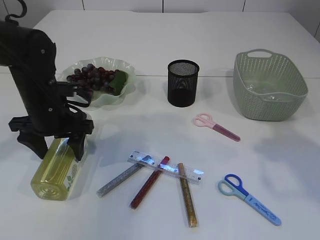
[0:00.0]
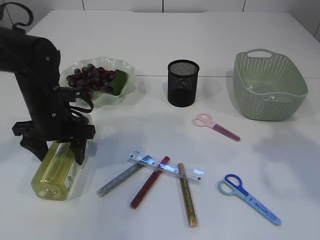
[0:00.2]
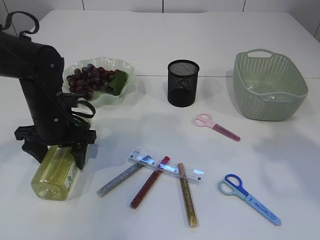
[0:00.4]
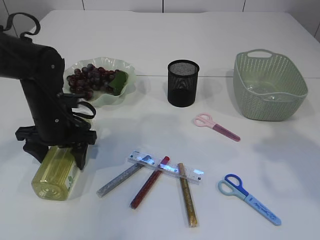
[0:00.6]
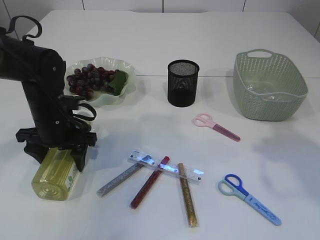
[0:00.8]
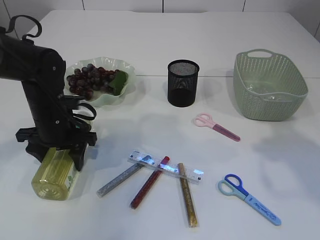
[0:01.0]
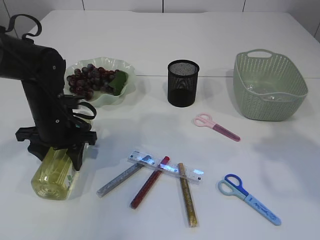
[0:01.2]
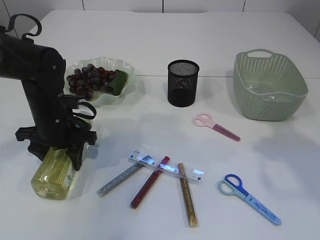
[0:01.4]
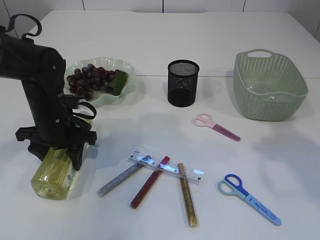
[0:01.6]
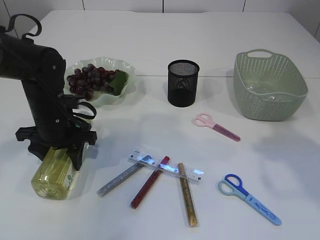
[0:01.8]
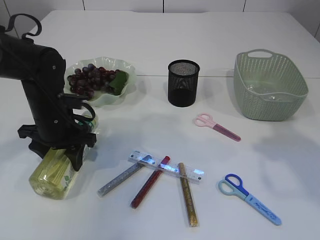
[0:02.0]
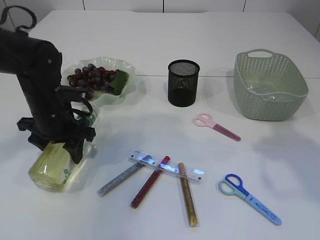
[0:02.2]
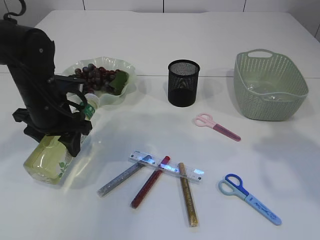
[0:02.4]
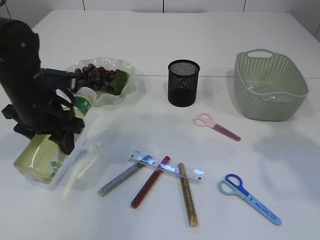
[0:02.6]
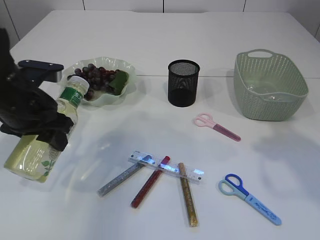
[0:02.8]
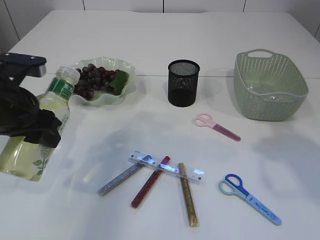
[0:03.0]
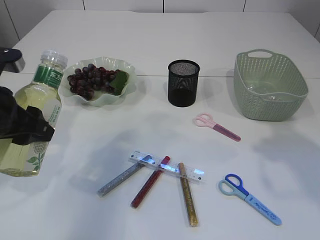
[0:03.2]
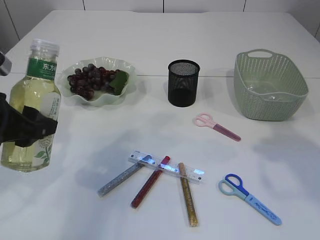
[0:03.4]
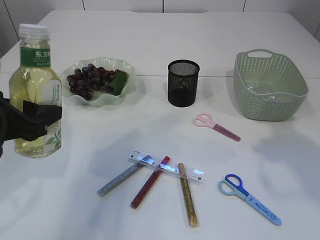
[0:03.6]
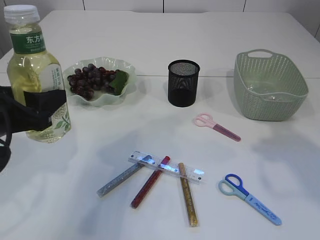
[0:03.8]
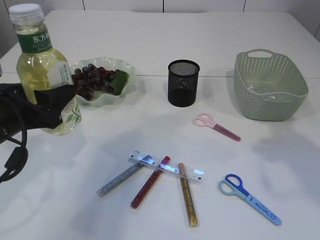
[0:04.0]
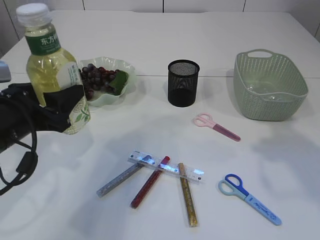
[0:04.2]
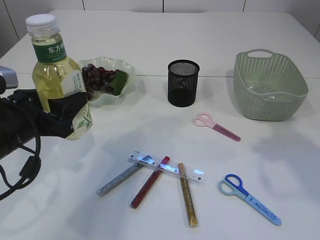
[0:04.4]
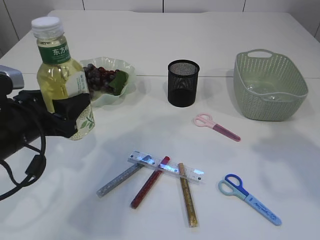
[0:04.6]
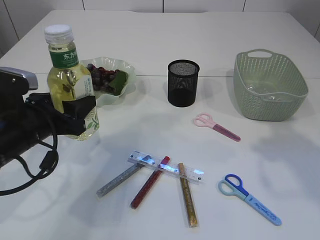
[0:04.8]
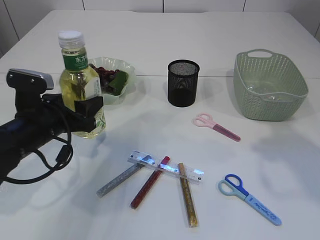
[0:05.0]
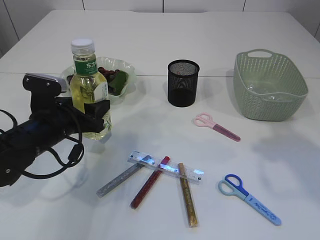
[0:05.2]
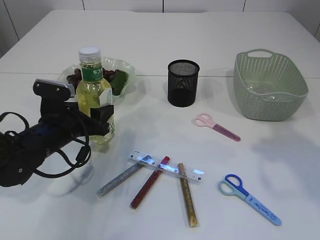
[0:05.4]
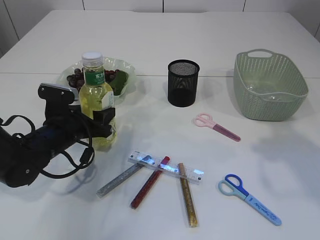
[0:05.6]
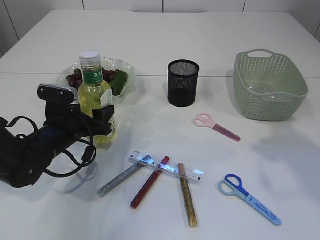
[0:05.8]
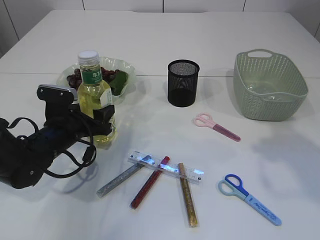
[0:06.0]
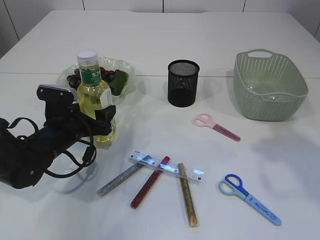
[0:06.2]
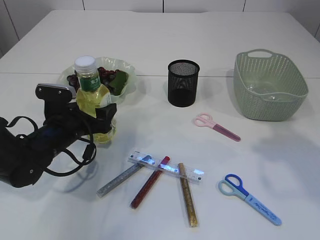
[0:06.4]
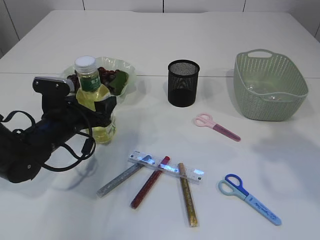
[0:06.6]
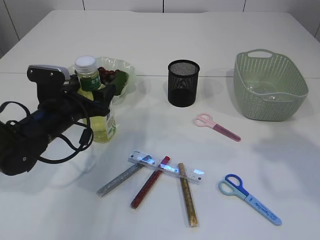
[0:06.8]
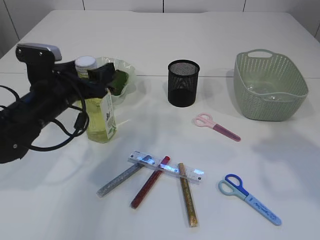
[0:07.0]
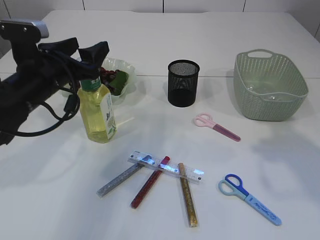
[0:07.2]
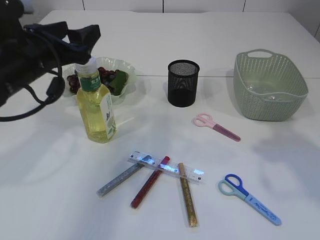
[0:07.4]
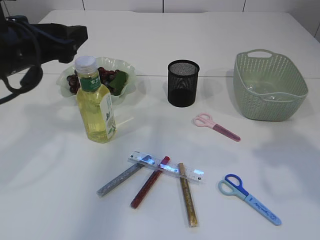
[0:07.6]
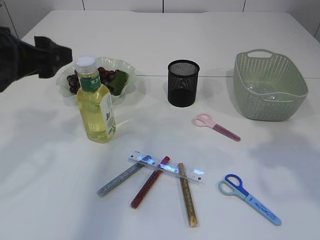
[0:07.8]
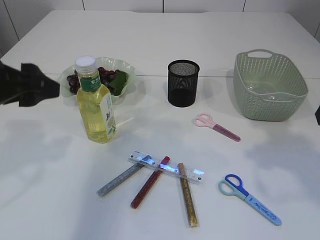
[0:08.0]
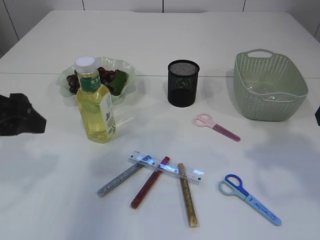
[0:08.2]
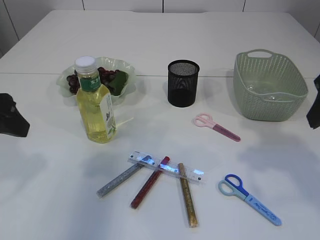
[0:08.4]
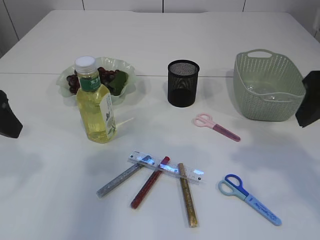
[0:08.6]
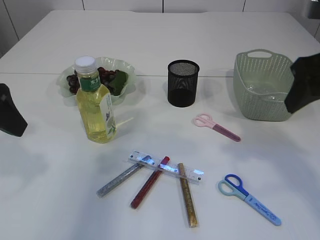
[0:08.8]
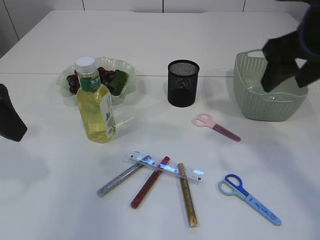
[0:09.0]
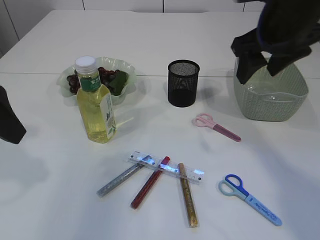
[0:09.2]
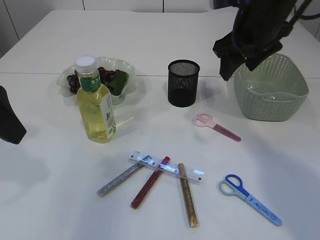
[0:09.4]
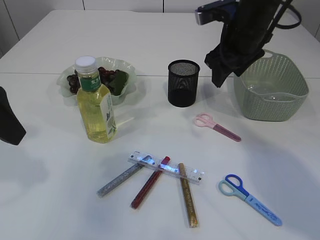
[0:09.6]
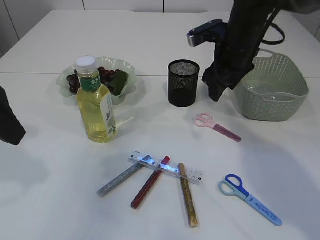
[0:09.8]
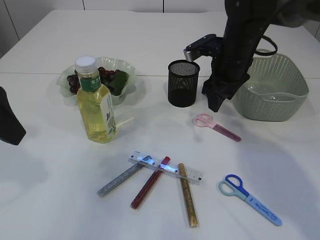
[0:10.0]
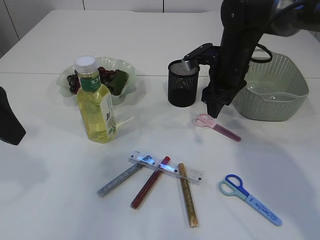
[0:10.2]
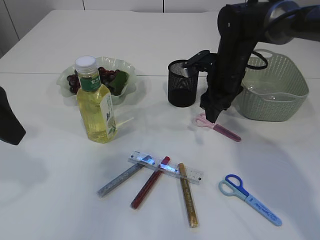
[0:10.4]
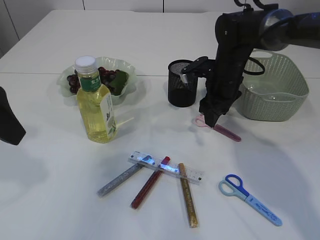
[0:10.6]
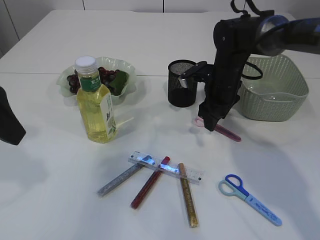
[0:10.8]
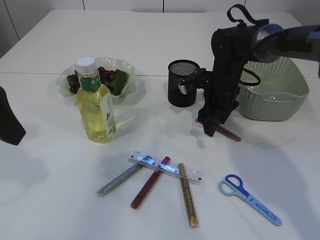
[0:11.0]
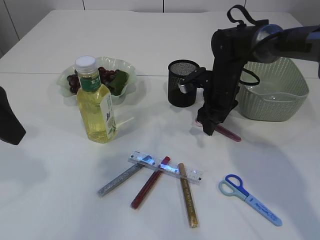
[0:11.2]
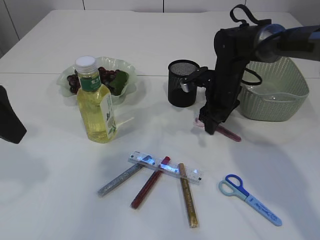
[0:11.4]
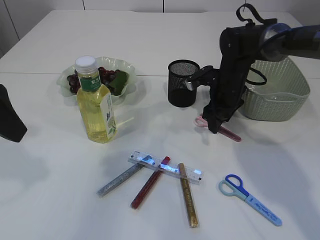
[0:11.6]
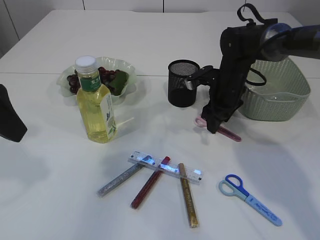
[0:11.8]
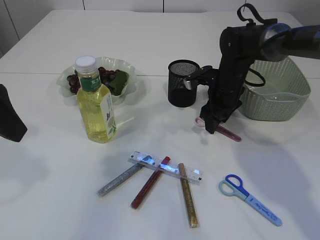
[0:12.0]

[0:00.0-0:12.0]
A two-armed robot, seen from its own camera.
Step, 0:00.0 to 0:03.0: Pick up the bottle with the left arm.
Step, 0:03.2 to 0:07.4: Place the bottle.
0:00.0 to 0:01.6: The grippers make only small movements.
0:01.6 to 0:03.0: The left gripper heads upward and backward, covering approximately 10 cm.
0:03.0 to 0:04.4: The left gripper changes place by approximately 5 cm.
0:04.4 to 0:06.0: The left gripper moves downward and forward, some 15 cm.
0:06.0 to 0:07.6: The left gripper moves upward, about 20 cm.
0:07.6 to 0:09.0: The right gripper shifts about 5 cm to the left. The left gripper goes roughly 5 cm backward.
0:09.0 to 0:10.4: The right gripper heads forward and downward, covering about 20 cm.
0:10.4 to 0:12.0: The grippers move only a little.

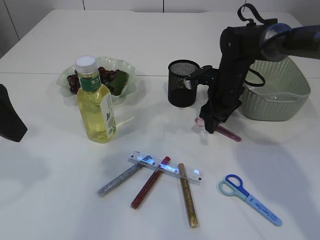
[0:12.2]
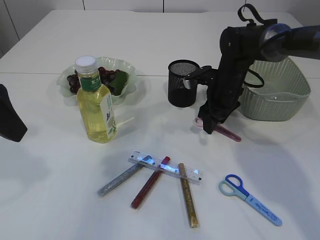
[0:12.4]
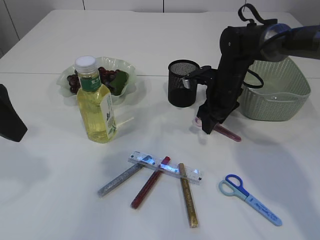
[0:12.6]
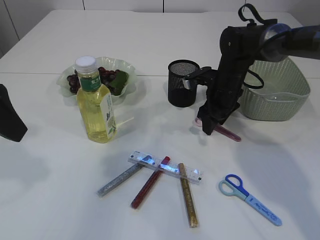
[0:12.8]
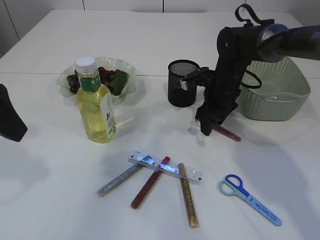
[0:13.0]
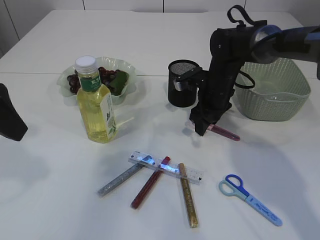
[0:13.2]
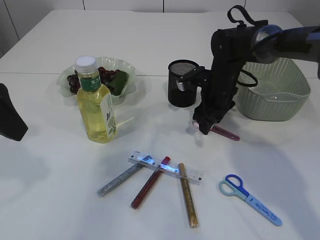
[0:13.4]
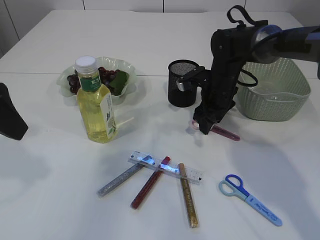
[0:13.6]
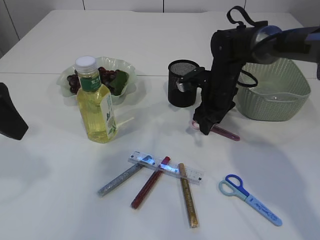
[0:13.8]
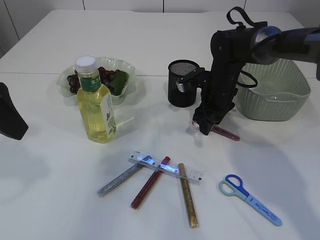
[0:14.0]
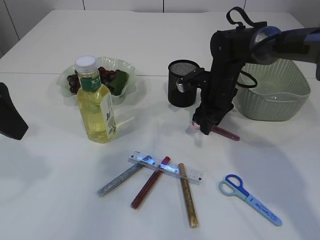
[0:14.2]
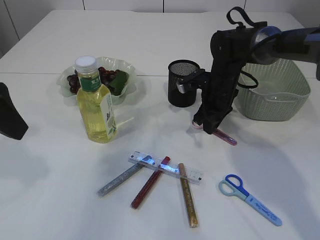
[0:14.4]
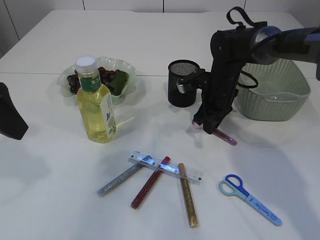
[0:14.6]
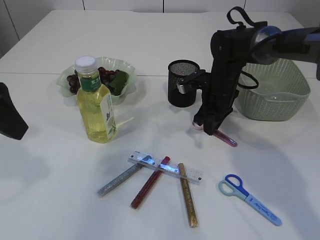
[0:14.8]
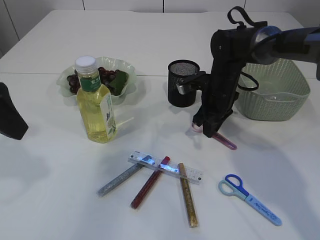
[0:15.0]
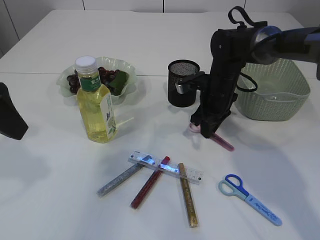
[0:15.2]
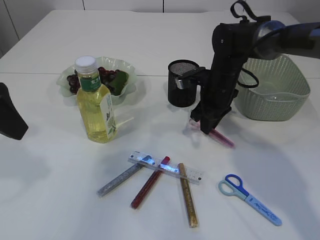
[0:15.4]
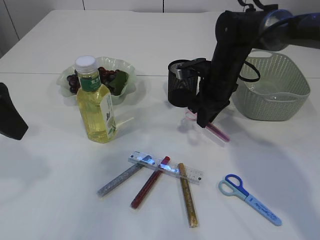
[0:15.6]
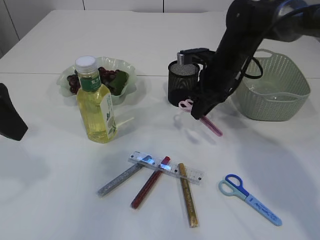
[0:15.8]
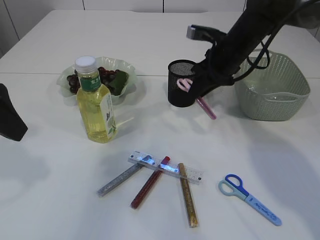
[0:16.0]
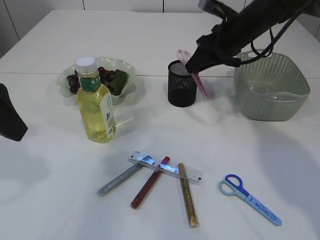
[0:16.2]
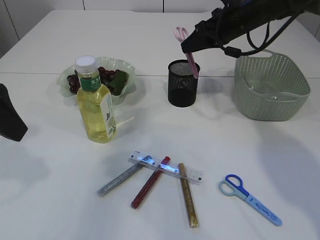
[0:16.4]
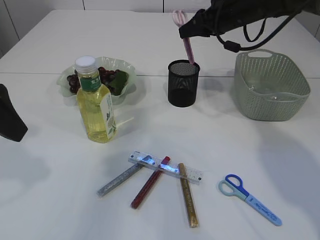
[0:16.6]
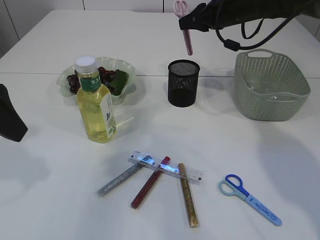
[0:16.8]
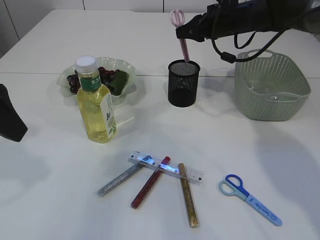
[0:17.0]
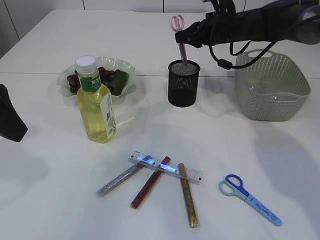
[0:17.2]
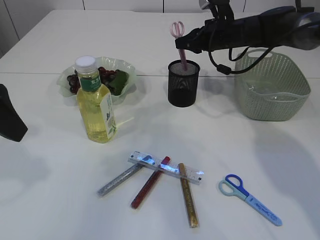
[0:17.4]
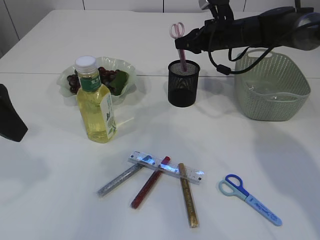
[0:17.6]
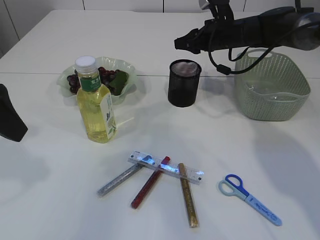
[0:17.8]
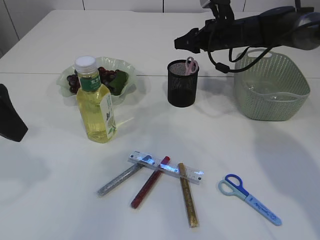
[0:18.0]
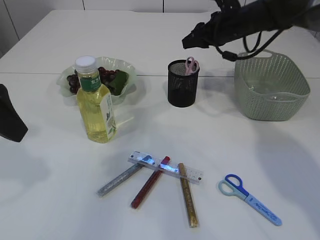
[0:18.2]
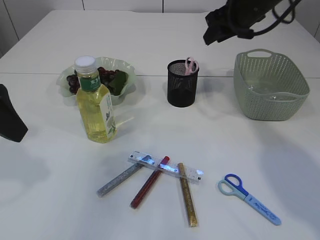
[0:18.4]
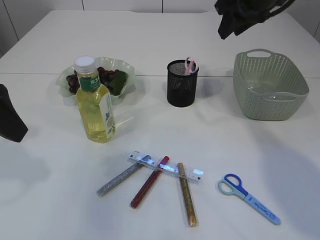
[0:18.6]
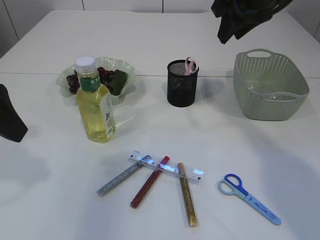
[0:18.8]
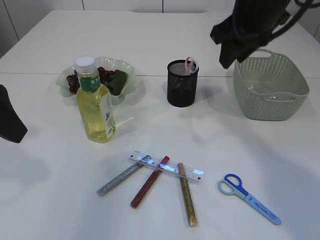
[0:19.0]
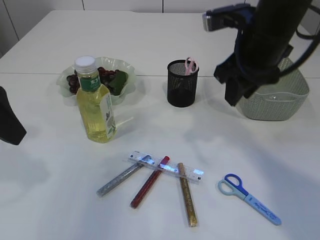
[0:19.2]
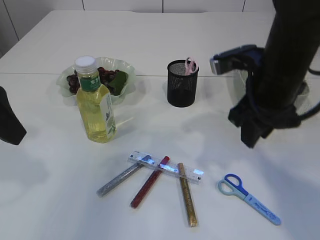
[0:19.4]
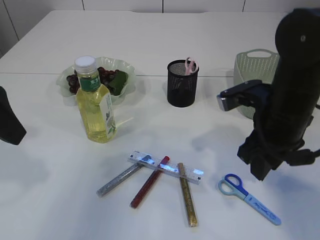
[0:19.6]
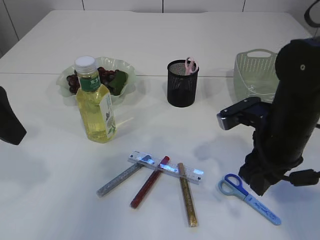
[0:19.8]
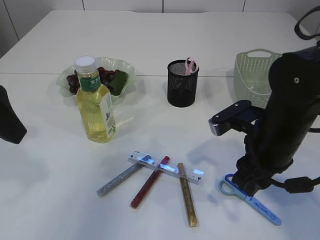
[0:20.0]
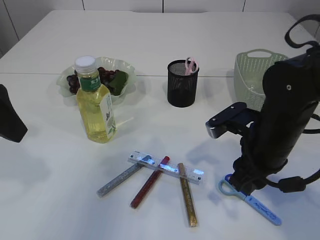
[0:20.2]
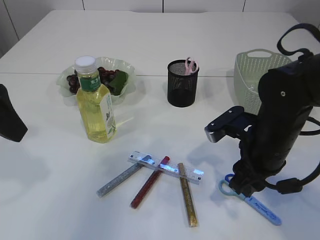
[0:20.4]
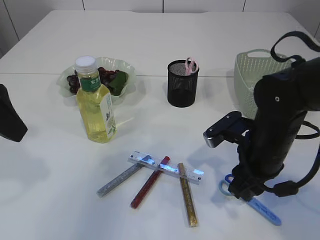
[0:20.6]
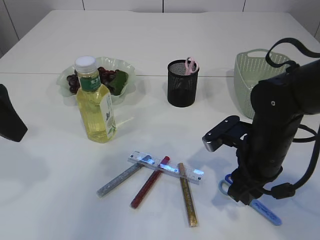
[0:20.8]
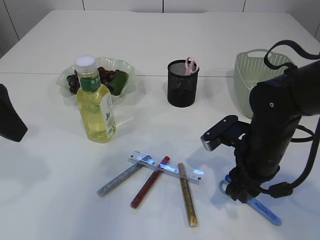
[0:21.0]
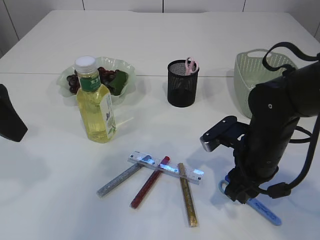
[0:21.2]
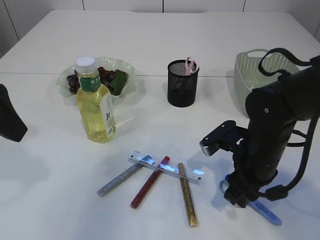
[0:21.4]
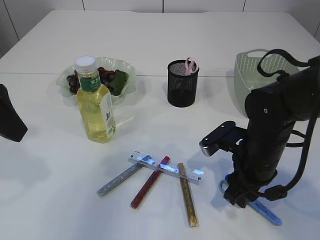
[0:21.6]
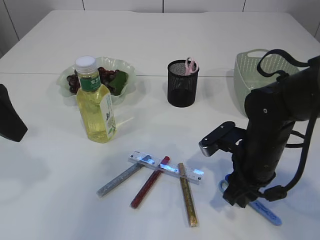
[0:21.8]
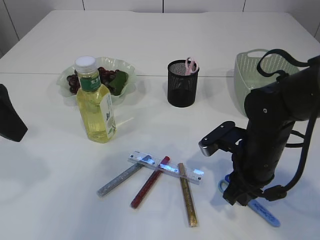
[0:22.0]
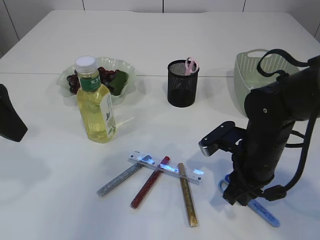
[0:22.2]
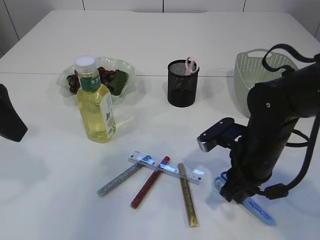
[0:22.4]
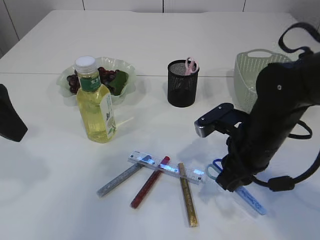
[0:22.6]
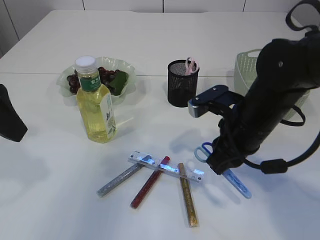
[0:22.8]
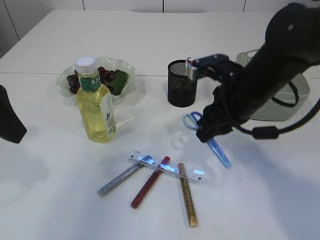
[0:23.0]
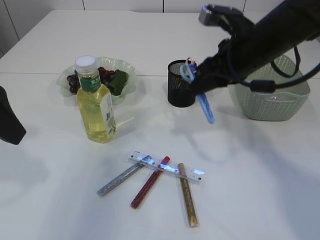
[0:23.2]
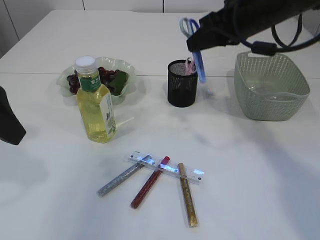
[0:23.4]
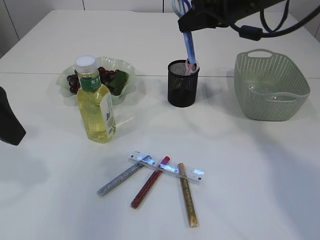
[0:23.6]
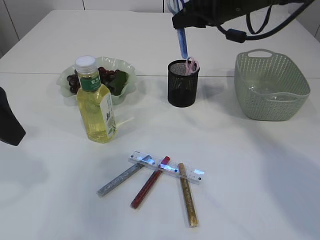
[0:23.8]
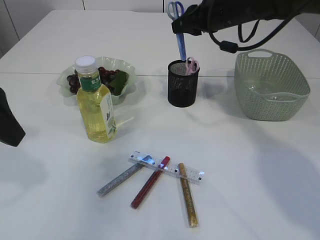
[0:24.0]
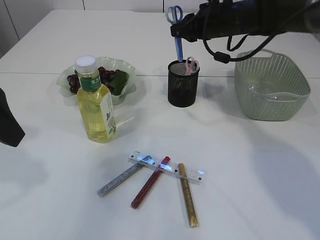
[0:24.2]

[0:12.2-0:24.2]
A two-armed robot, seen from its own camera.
Step, 0:12.2 to 0:16.0: pick up the pink scissors.
Step, 0:16.2 to 0:18.2: Place the pink scissors into the pen holder.
Step, 0:18.4 to 0:22.8: pick up the blue scissors.
0:12.2 to 0:13.8: The grippers make only small movements.
0:13.8 to 0:15.2: The right gripper closes up.
0:15.2 to 0:16.6: The right gripper travels upward by about 15 cm.
0:18.2 to 0:19.8: The right gripper travels backward by about 25 cm.
0:19.8 to 0:21.2: The right gripper travels downward by about 5 cm.
0:21.2 to 0:22.6: The right gripper closes its fingers.
0:22.6 to 0:24.2: The right gripper heads forward and upward, covering roughly 25 cm.
